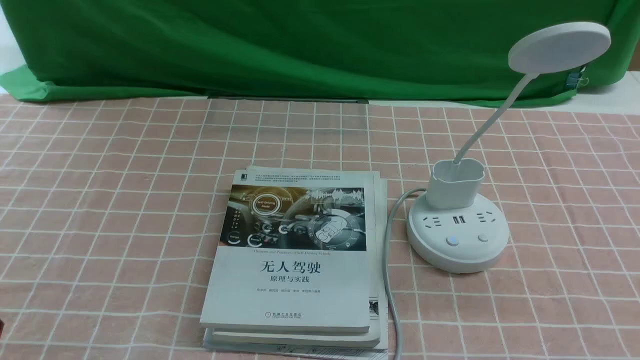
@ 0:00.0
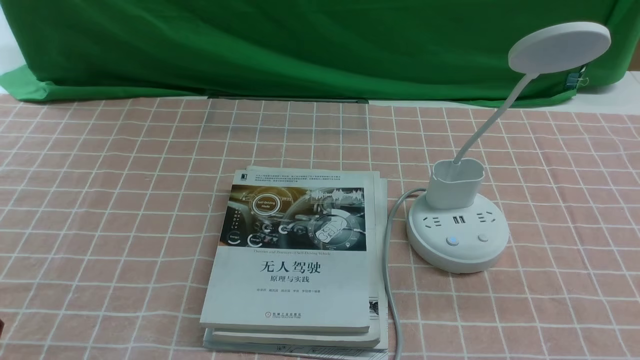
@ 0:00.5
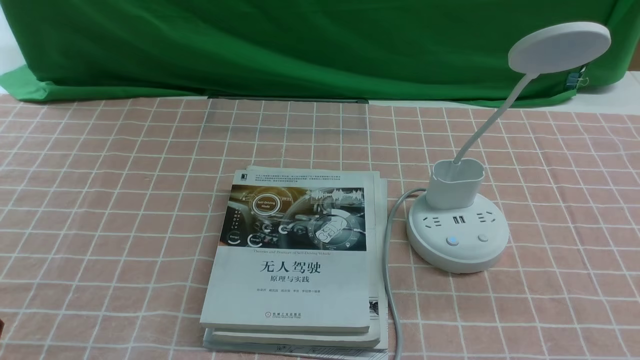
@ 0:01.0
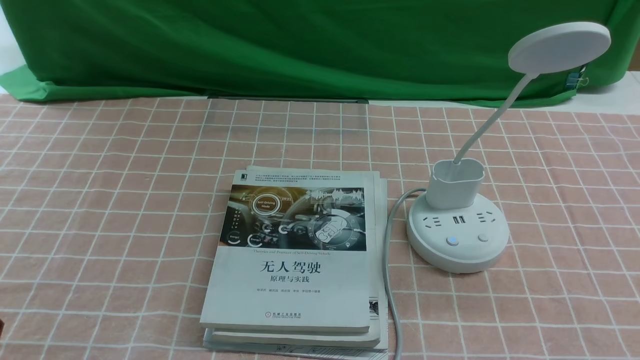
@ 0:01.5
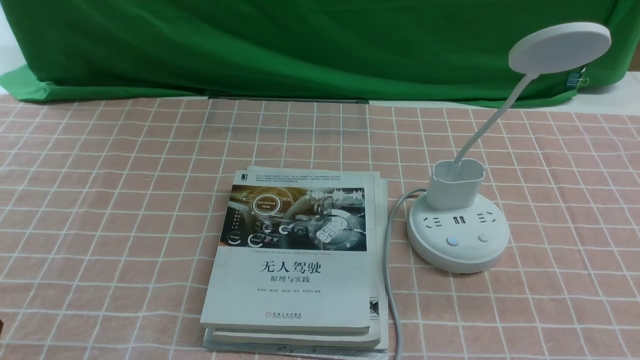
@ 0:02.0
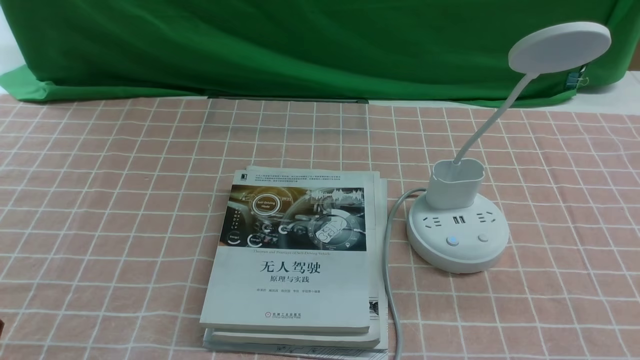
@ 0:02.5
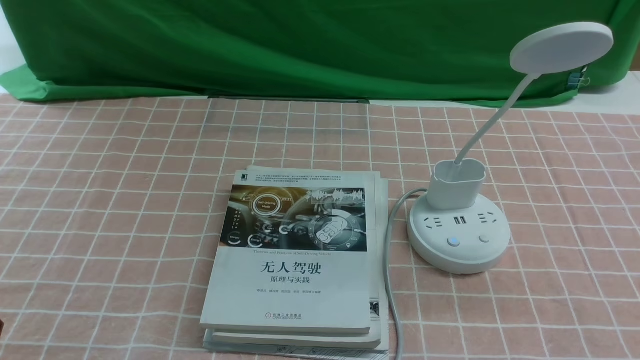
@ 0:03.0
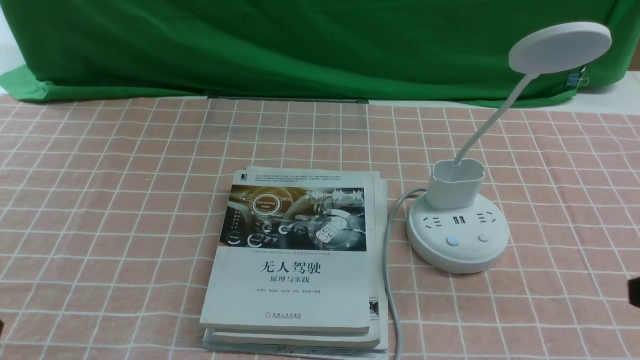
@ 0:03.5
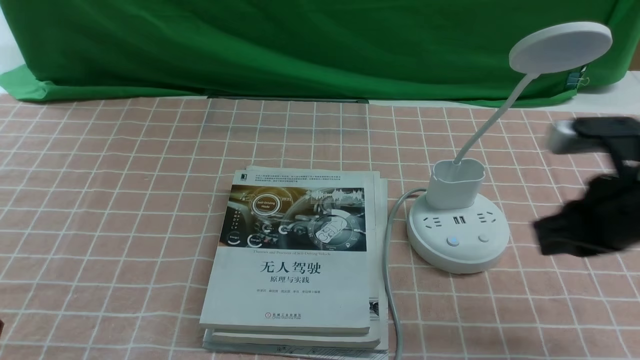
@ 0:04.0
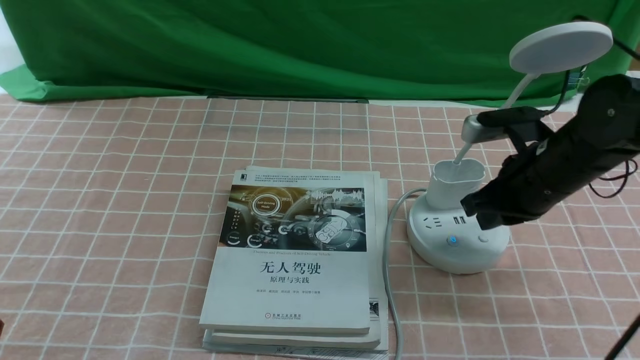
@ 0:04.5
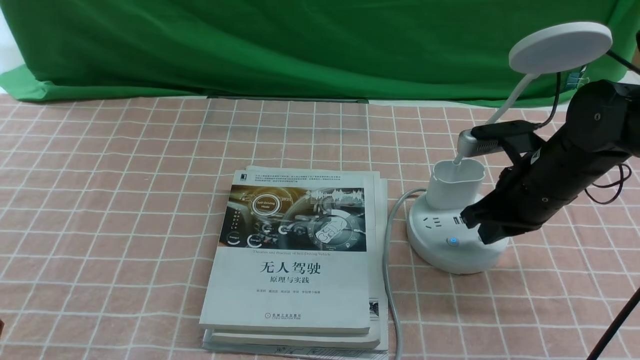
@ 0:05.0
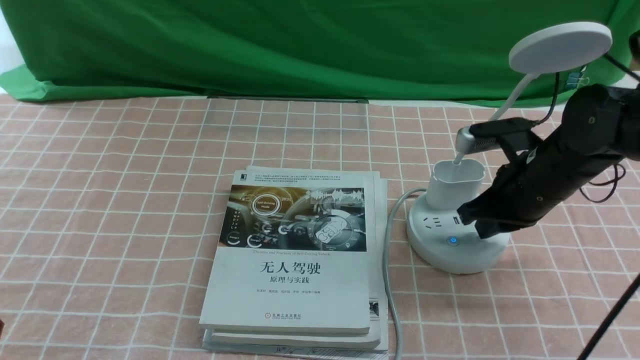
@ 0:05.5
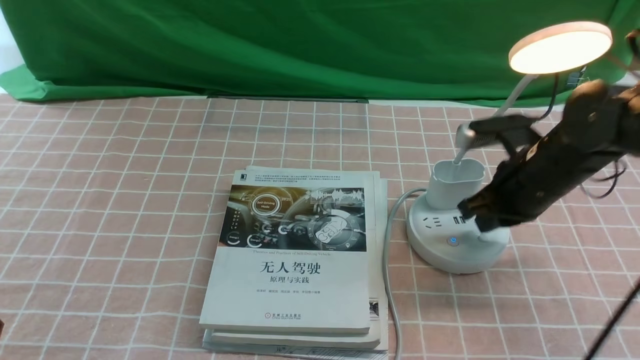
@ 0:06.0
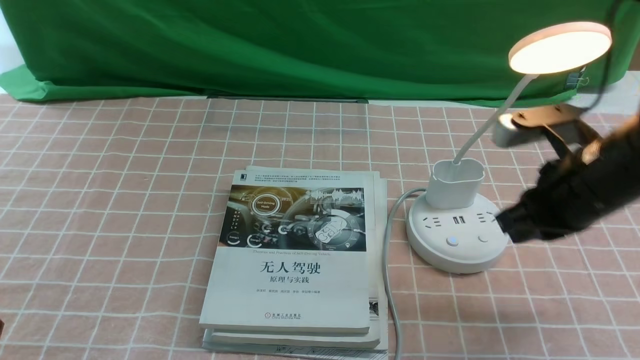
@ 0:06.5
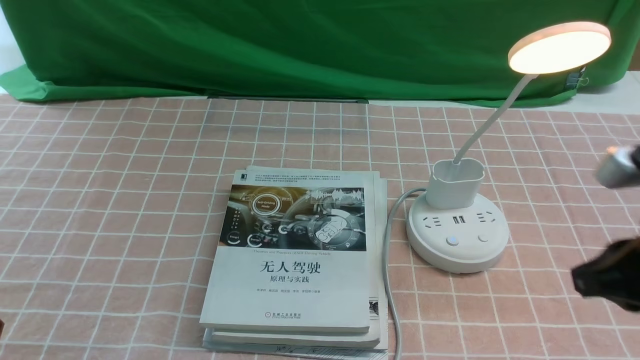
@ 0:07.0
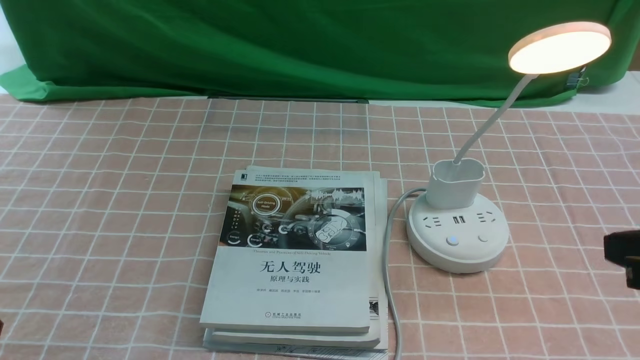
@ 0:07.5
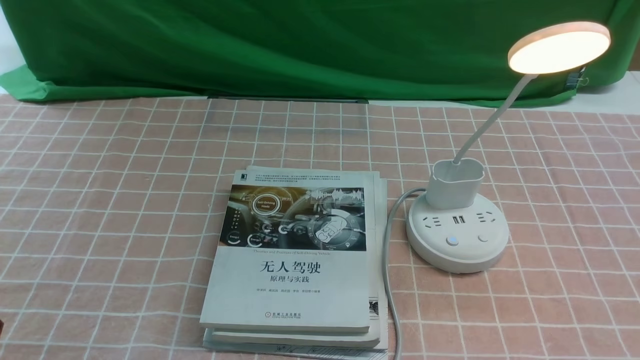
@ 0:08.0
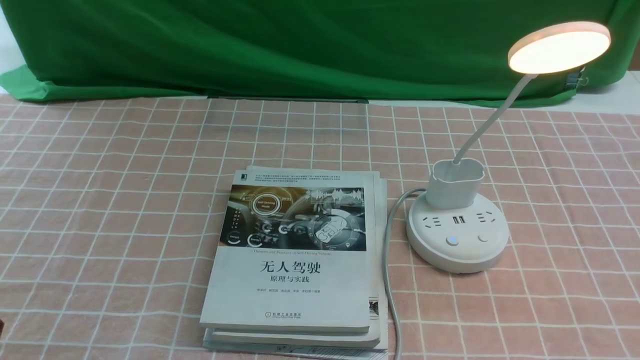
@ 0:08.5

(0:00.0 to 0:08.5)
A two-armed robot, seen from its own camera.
Step, 0:00.0 - 0:06.0: use the right arm to press the button switch on the lamp holder.
0:00.0 - 0:02.0: The two grippers keep their place.
0:02.0 - 0:04.0: The right gripper goes some 20 cm forward, and closes up.
0:04.0 - 0:06.5: The right gripper moves roughly 10 cm forward and comes back.
0:06.5 - 0:08.5: The right gripper shifts about 20 cm backward.

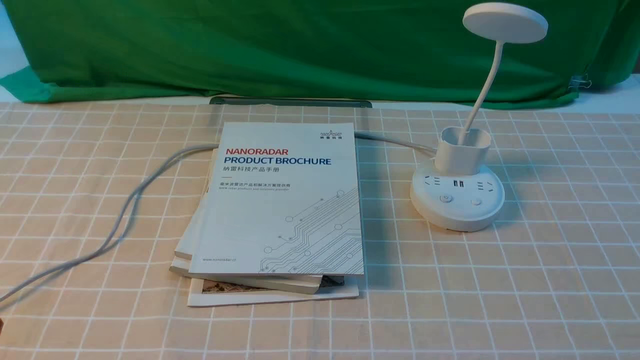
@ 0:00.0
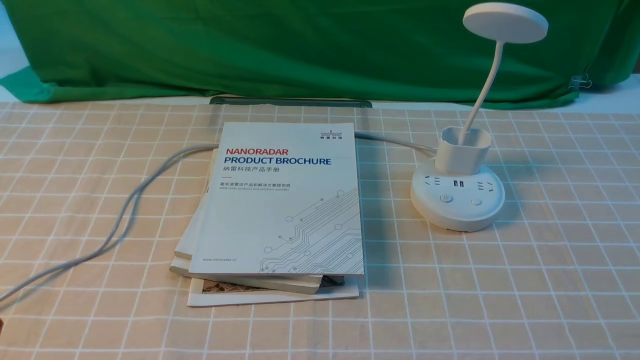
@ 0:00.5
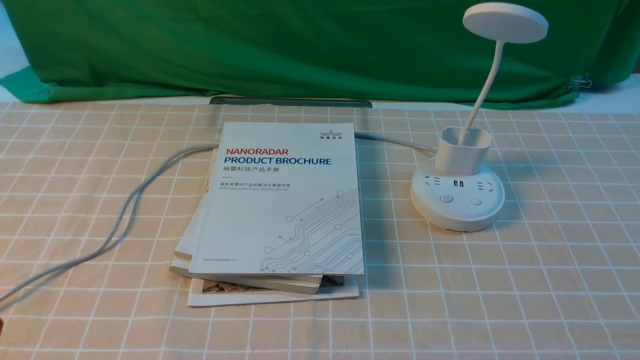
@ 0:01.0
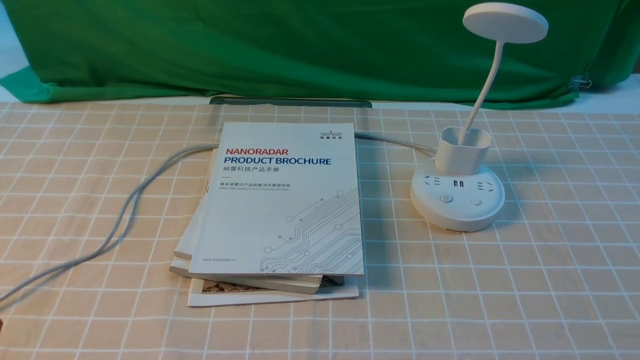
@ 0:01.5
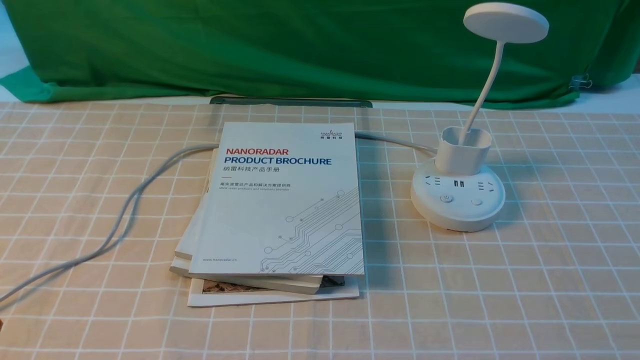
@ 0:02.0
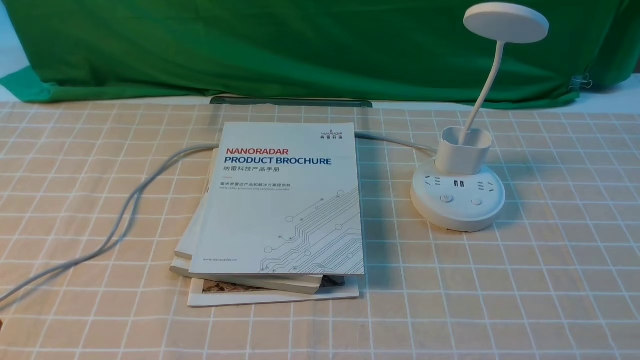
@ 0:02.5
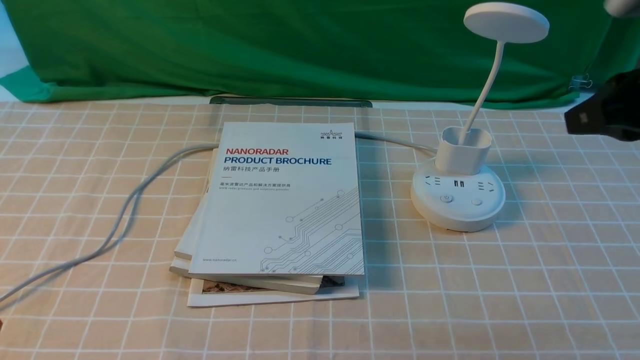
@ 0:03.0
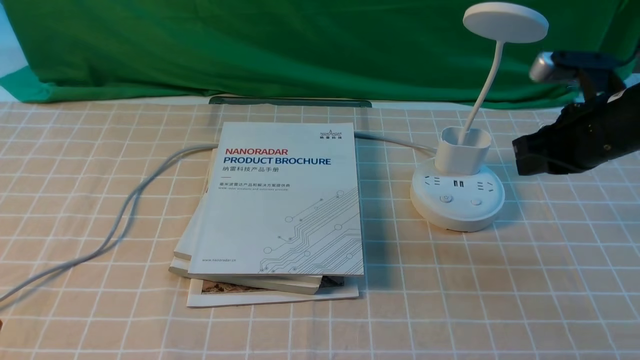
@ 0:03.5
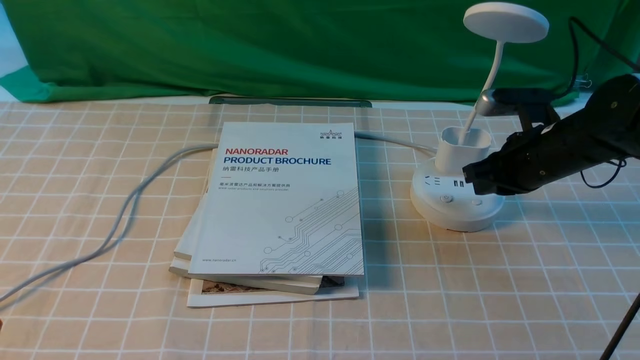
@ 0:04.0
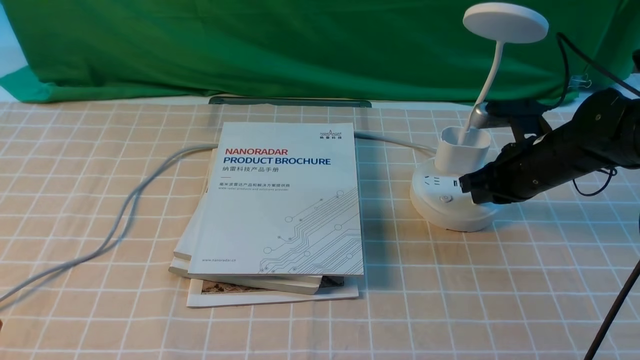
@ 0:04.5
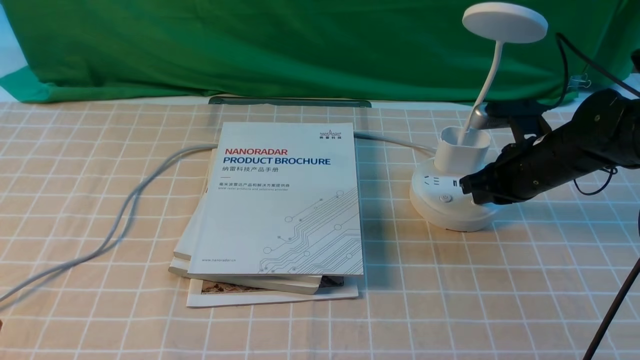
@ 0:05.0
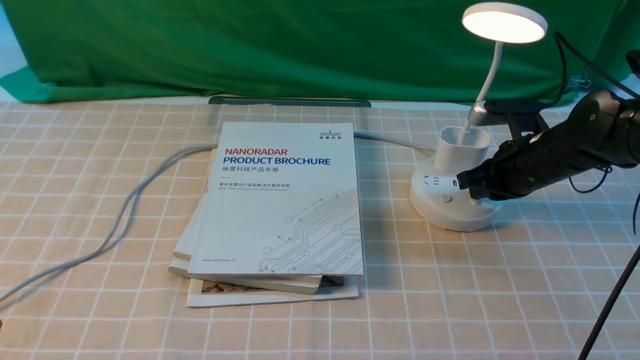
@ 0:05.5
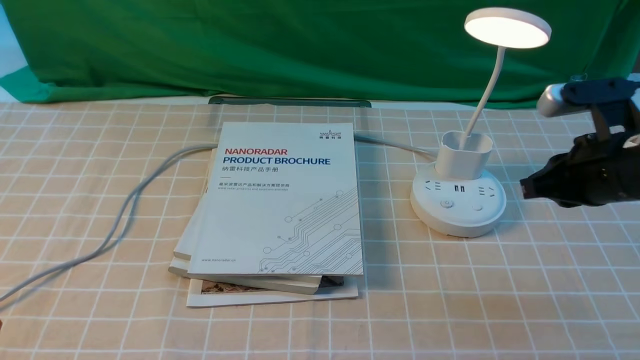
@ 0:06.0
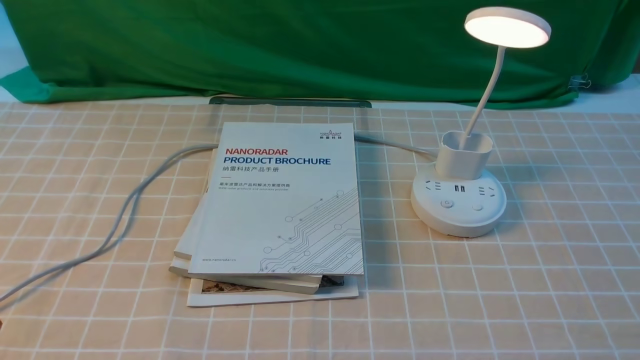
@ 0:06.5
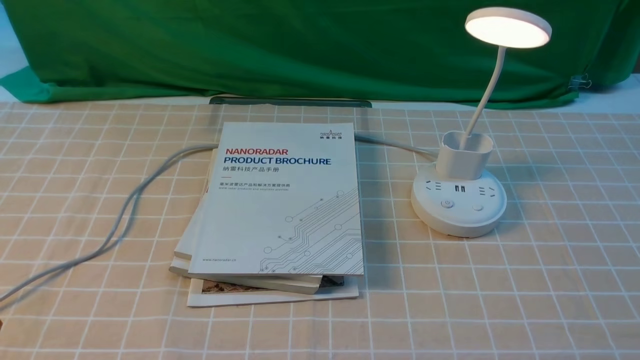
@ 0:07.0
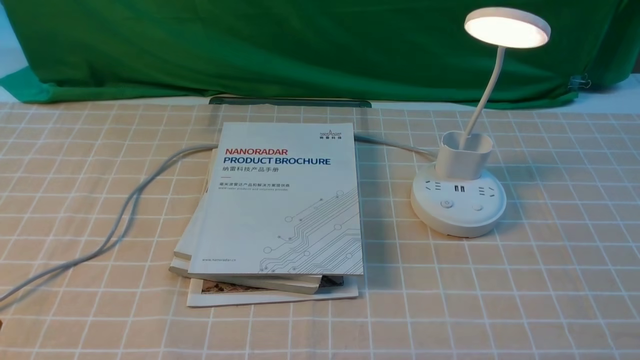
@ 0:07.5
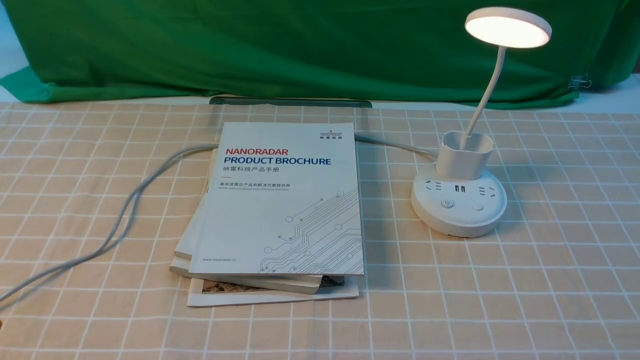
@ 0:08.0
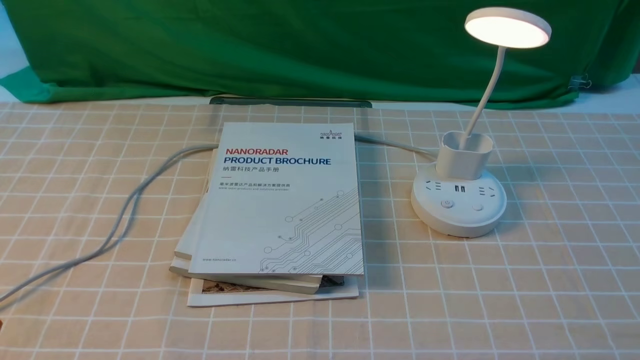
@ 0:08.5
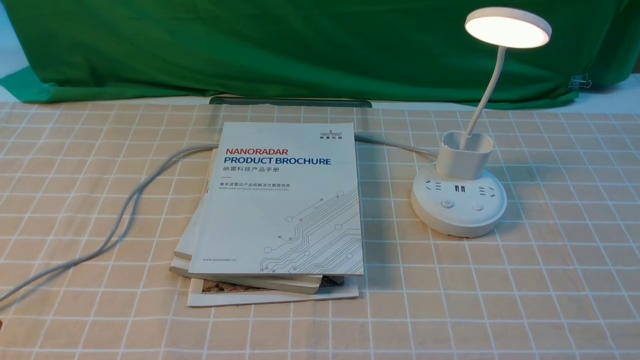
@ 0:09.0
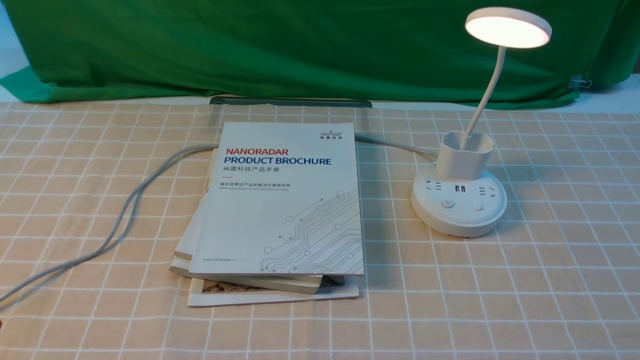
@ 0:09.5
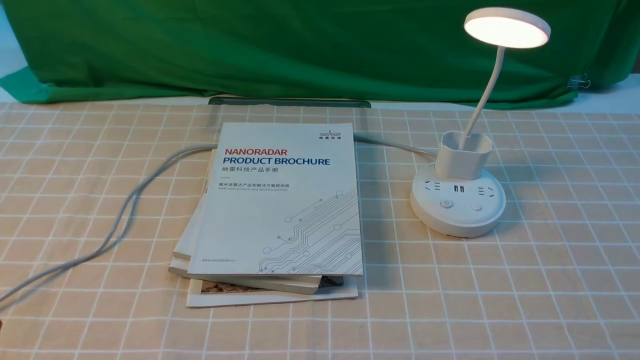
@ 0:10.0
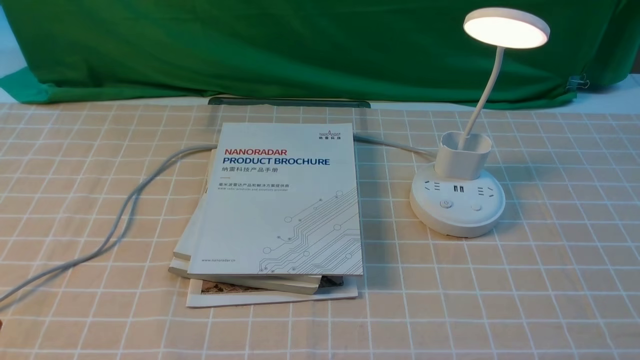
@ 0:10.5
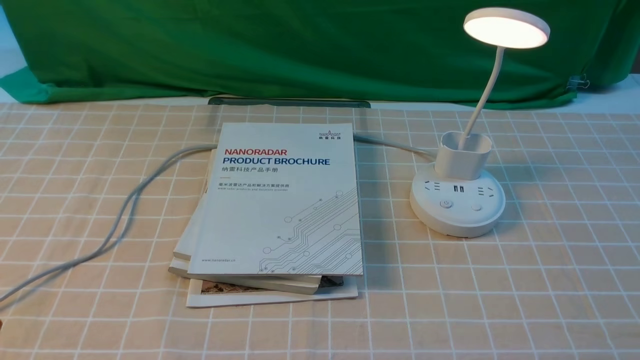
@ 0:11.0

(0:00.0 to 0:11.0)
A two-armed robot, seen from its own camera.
Step, 0:00.0 - 0:05.5: use the right arm to press the button switch on the lamp holder.
0:02.0 - 0:03.5: The right gripper travels forward by about 30 cm, and closes up.
0:03.5 - 0:05.5: The right gripper moves downward, about 5 cm.
0:05.5 - 0:07.5: The right gripper travels backward by about 30 cm.
